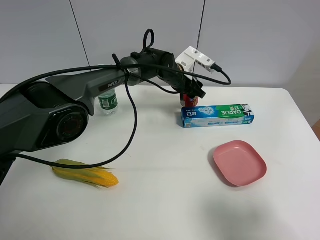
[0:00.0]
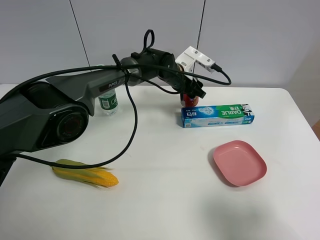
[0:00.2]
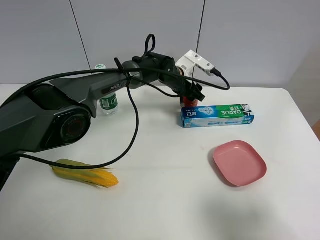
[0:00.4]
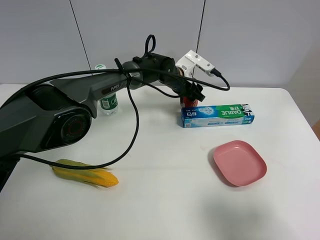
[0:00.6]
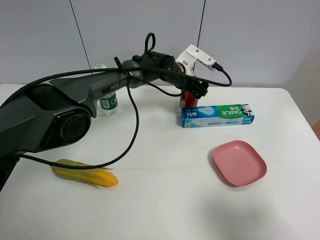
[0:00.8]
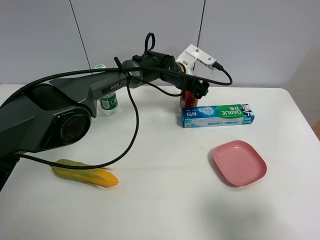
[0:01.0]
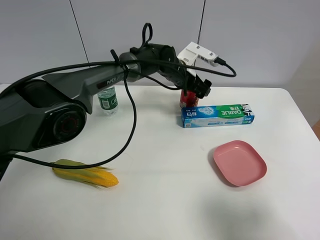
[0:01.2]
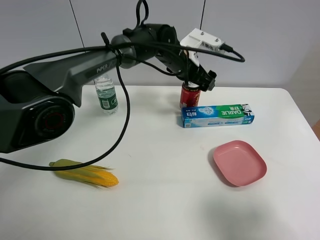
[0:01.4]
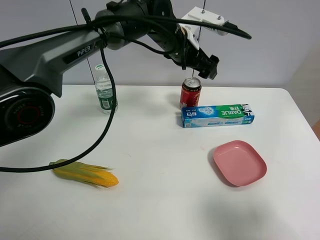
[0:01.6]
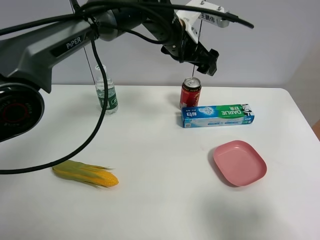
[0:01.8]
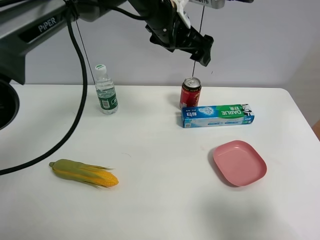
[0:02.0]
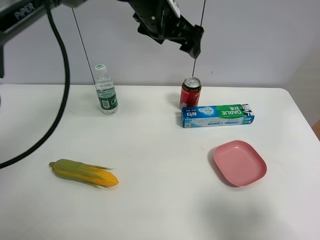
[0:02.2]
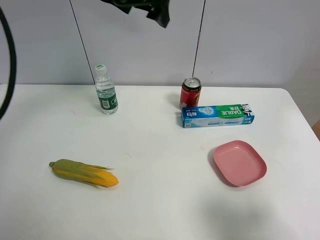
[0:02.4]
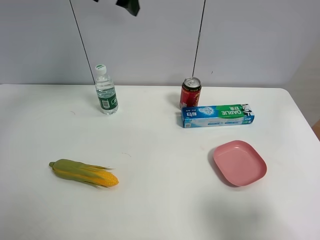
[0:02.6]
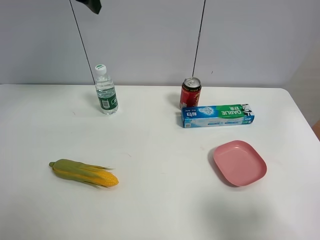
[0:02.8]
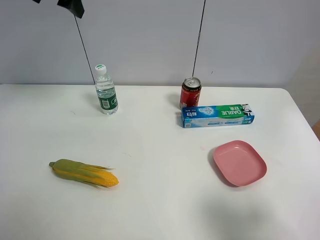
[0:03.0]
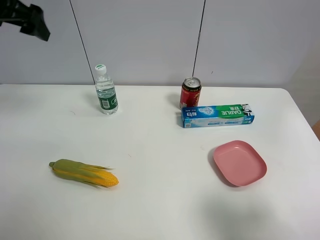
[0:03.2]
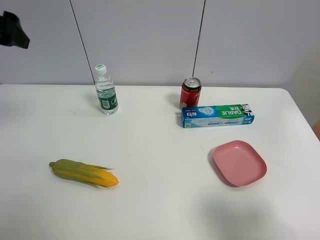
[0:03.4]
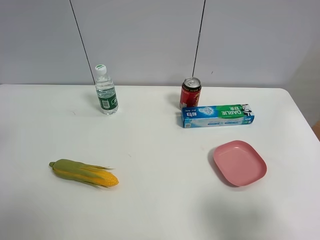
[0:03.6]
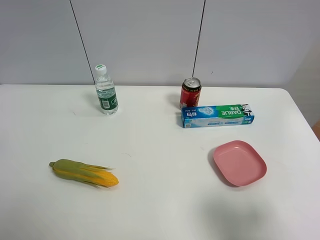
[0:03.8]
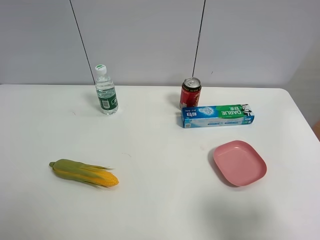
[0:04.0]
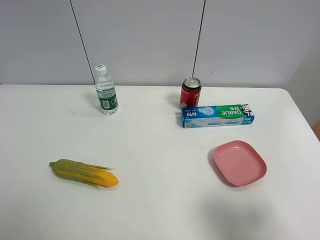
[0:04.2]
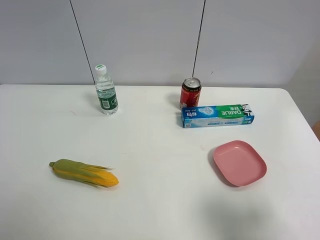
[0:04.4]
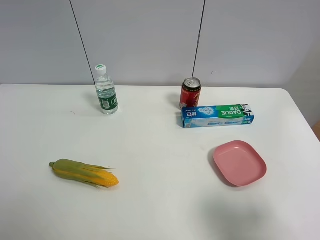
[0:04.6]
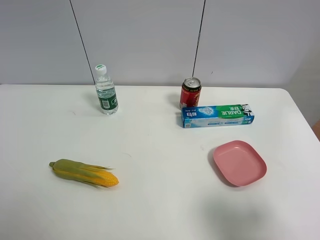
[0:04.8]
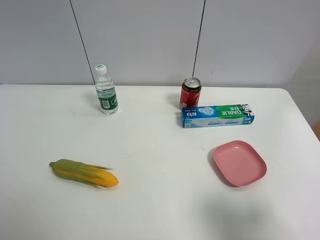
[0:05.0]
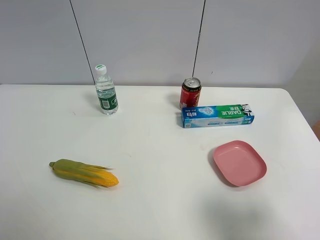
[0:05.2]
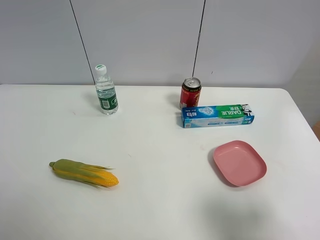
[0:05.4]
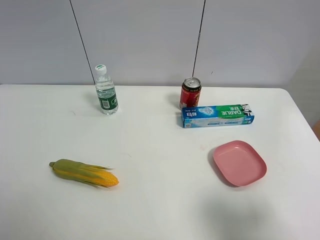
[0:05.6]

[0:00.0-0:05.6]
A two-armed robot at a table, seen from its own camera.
Task of the whole recording: the gripper move the object.
0:00.0 to 0:01.4: The left gripper is displaced upward by some 5 cm, and opens.
0:01.4 to 0:02.8: The left gripper shifts some 30 cm to the left and upward.
0:02.8 to 0:04.2: The left gripper moves backward, roughly 40 cm.

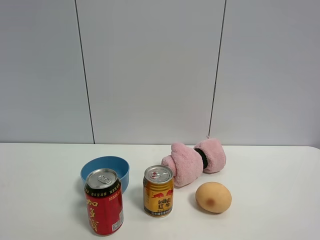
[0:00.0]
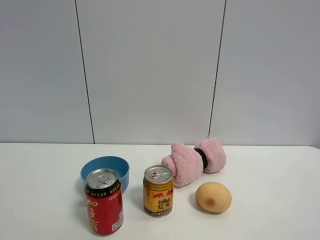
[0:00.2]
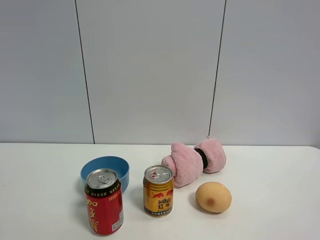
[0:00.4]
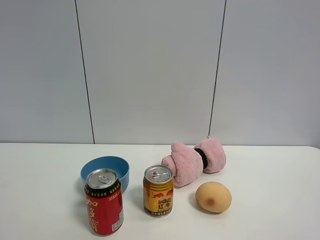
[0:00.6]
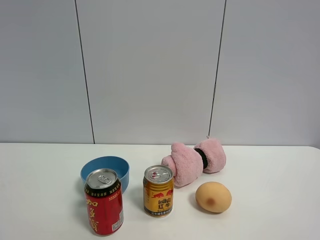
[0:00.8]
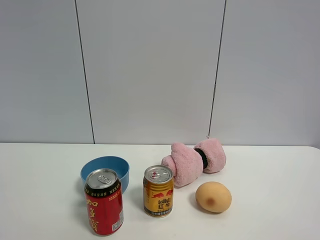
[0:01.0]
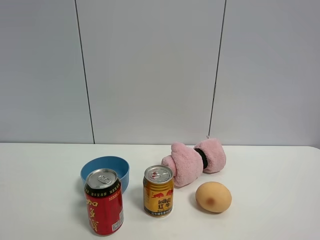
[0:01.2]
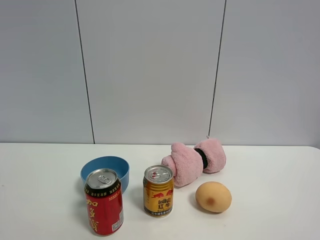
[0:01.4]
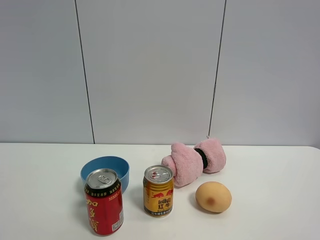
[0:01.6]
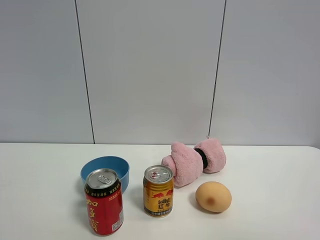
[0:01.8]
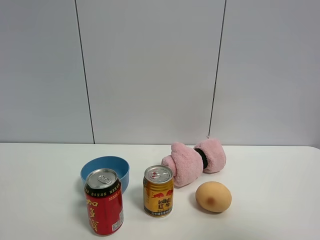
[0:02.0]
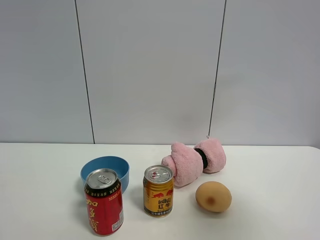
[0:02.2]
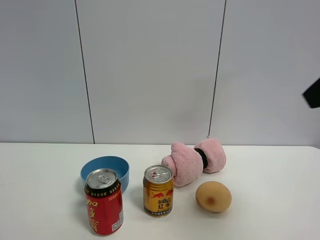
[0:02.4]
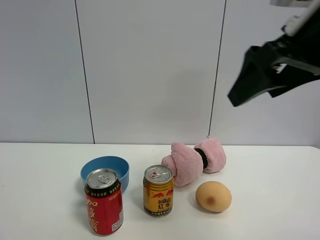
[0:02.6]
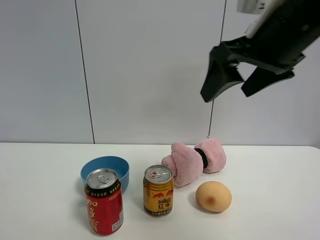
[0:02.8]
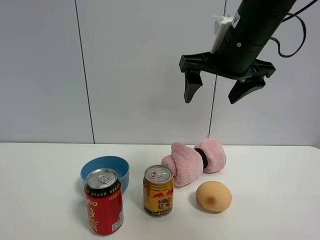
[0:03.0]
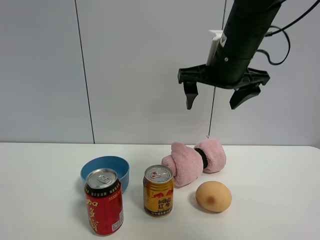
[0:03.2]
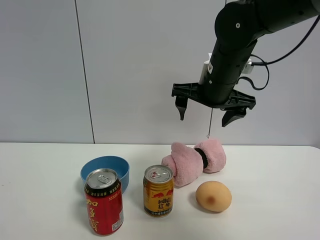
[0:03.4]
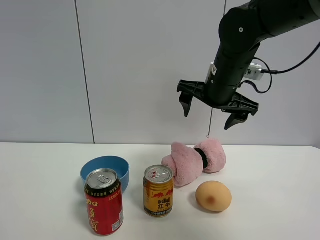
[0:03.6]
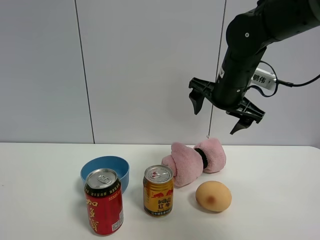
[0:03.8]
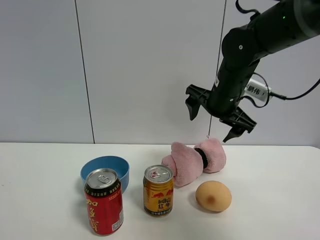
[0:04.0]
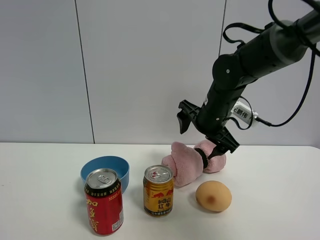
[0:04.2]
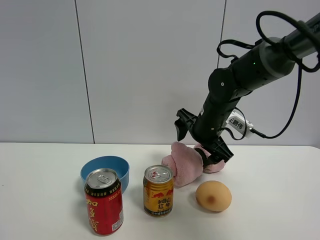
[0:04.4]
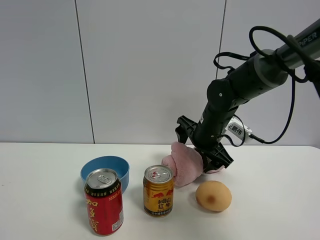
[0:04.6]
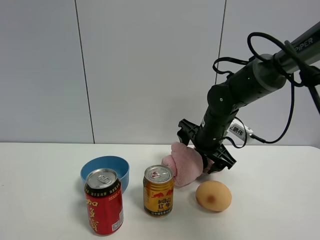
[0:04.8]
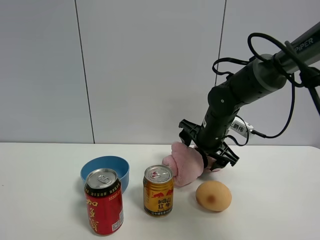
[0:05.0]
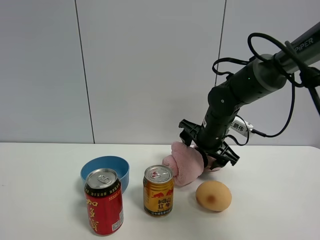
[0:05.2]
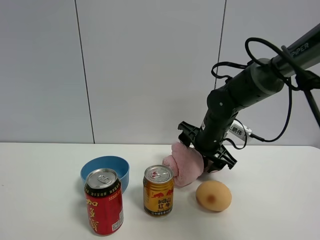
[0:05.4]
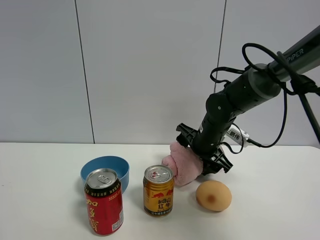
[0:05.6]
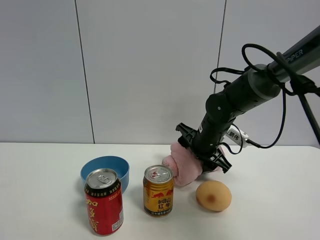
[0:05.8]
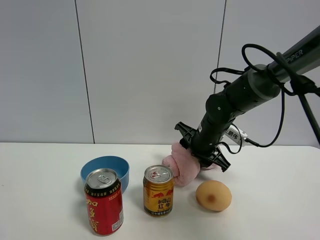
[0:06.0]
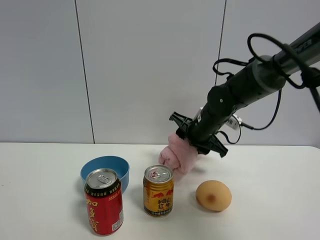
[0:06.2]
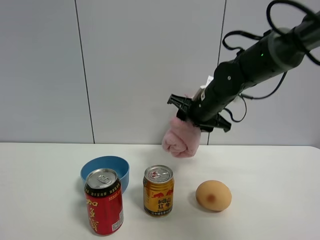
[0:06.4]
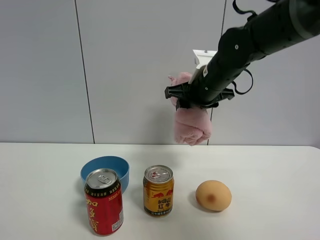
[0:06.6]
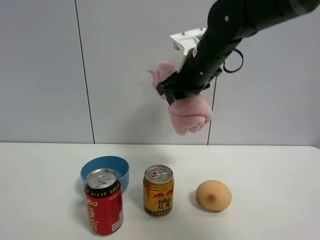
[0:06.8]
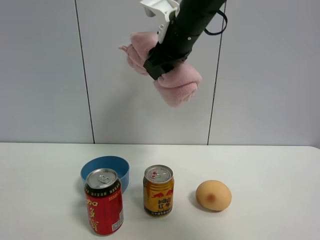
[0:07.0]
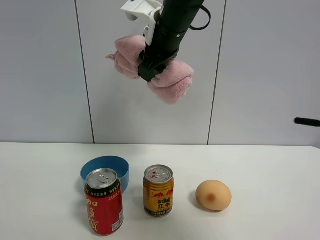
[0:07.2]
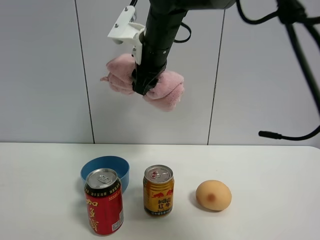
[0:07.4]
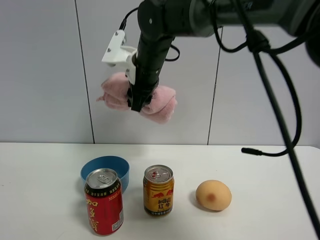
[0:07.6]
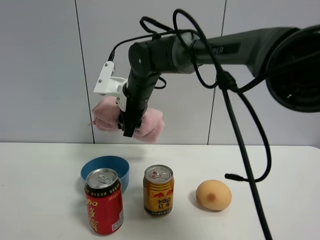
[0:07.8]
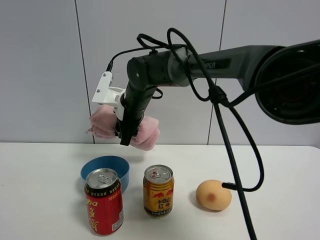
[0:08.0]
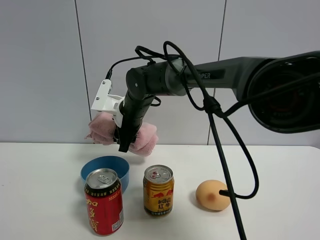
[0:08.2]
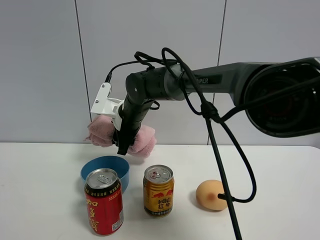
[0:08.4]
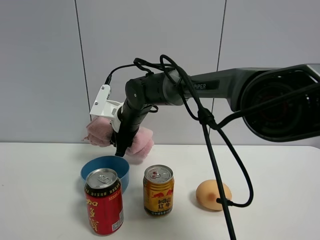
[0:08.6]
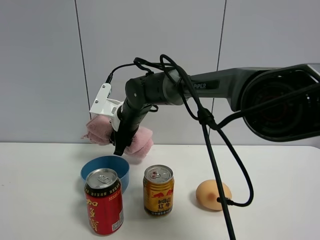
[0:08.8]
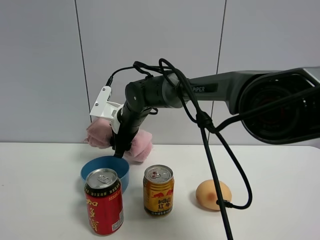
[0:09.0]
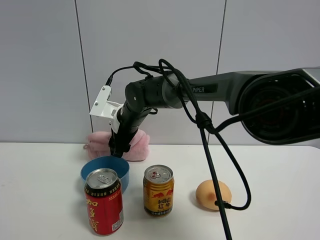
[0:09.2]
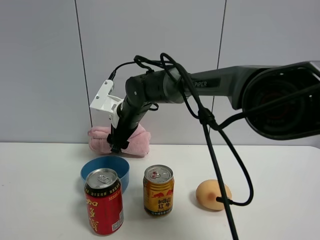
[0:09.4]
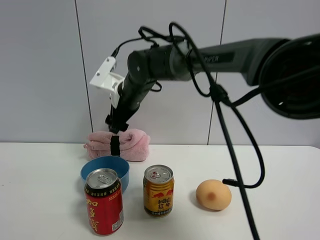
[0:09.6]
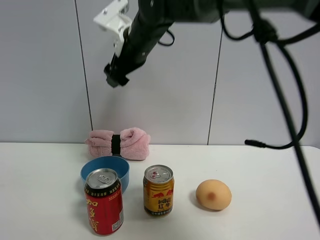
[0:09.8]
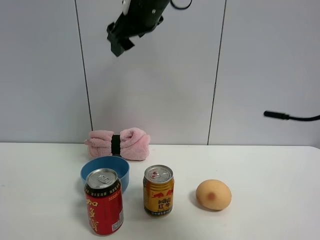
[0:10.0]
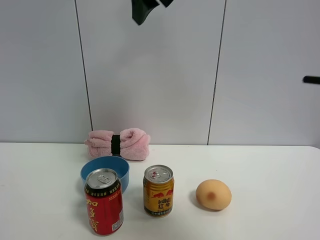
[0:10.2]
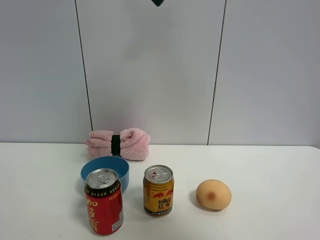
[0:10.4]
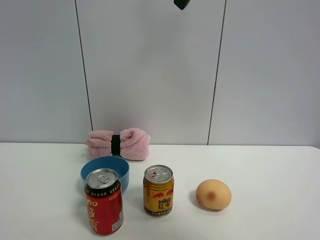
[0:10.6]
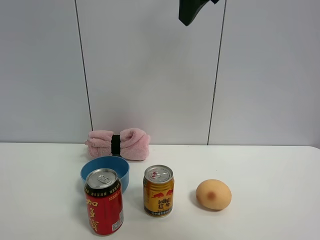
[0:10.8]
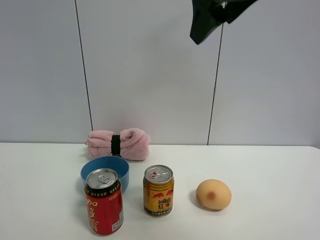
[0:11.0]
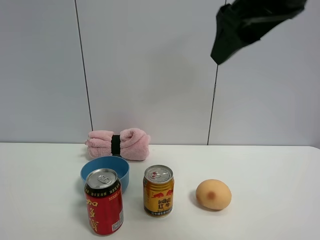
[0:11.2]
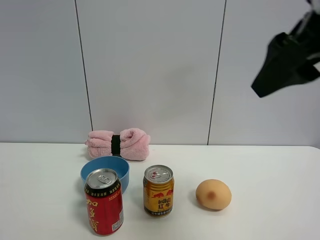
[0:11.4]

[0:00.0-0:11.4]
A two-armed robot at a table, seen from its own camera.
Task of the whole recording: the gripper move the object.
Step, 0:00.0 to 0:06.0: Grasp the pink towel with the right gripper.
Step, 0:06.2 to 0:09.6: Place the pink towel on the table with the right gripper.
0:00.0 to 0:01.4: The two grippers keep their place.
0:01.4 to 0:02.8: The right gripper travels forward and to the left by some 30 cm.
0:02.8 to 0:04.2: The right gripper moves downward and forward, approximately 20 cm.
0:04.2 to 0:05.6: The right gripper moves downward, some 5 cm.
0:05.6 to 0:07.2: The right gripper is displaced upward and to the left by about 25 cm, and closes up.
0:07.2 to 0:08.6: The right gripper shifts about 20 cm downward and to the left.
0:08.6 to 0:10.0: The right gripper travels upward by about 25 cm, and opens.
0:10.0 to 0:11.4: The right gripper heads backward and to the right, covering roughly 30 cm.

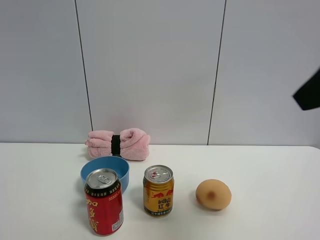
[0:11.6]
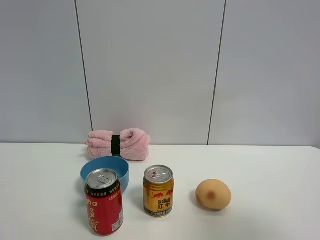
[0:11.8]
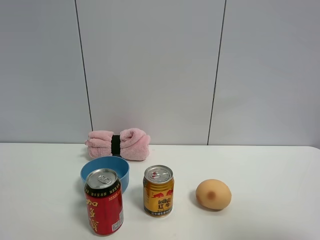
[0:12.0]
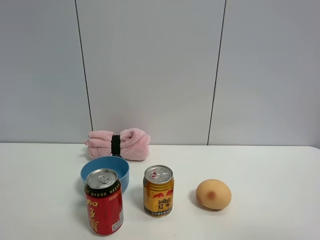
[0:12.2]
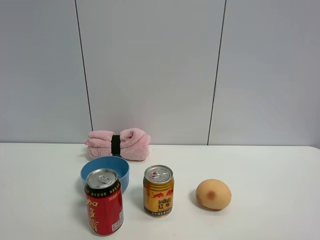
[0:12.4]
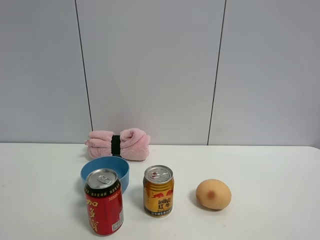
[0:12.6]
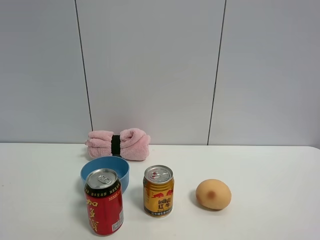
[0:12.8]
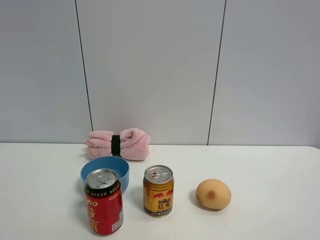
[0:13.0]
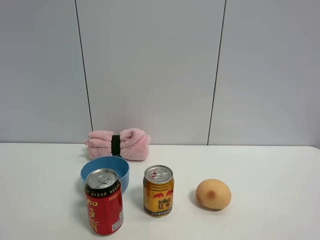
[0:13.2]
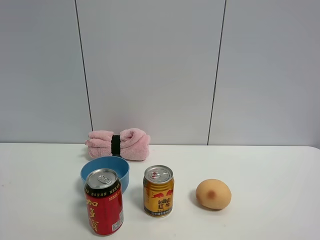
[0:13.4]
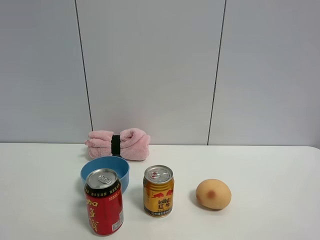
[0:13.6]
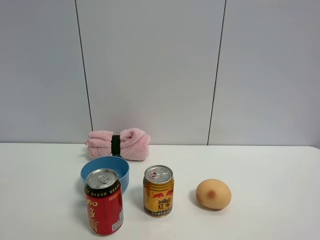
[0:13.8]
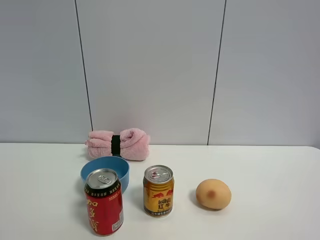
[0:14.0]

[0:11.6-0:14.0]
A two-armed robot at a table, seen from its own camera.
Task of the whole recording: the gripper move the object.
0:11.6 to 0:12.8: The right gripper goes about 20 cm backward, to the right and downward.
0:12.8 to 0:14.0: Both grippers stay put.
